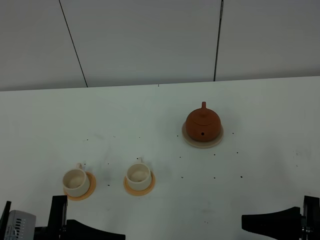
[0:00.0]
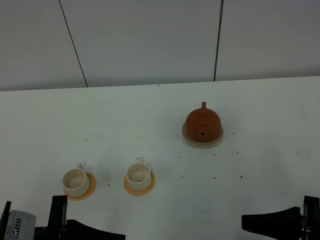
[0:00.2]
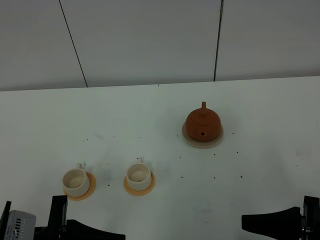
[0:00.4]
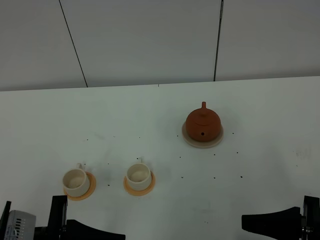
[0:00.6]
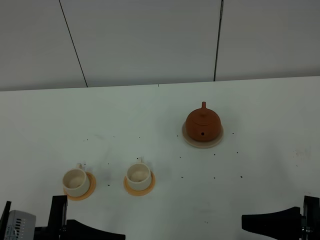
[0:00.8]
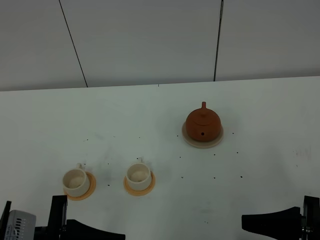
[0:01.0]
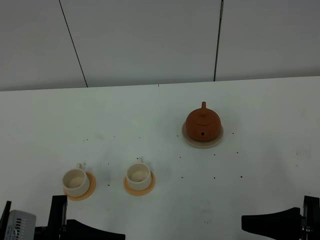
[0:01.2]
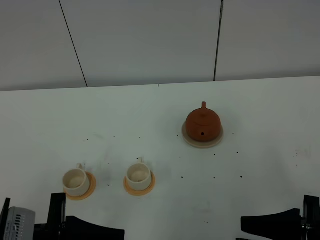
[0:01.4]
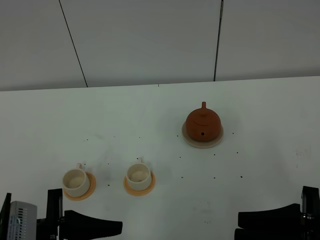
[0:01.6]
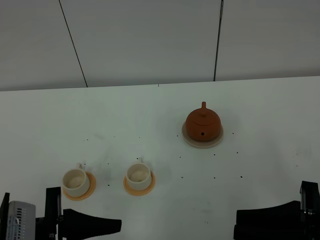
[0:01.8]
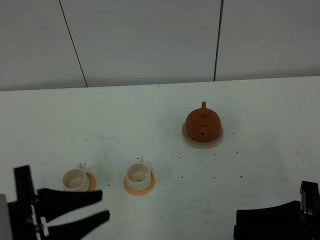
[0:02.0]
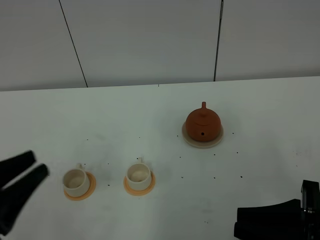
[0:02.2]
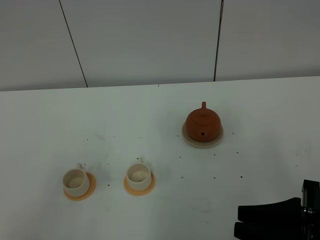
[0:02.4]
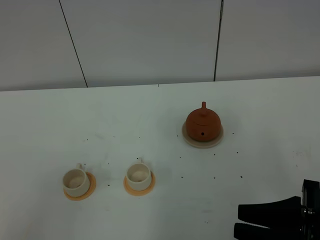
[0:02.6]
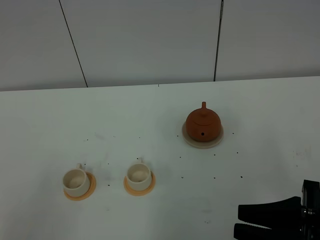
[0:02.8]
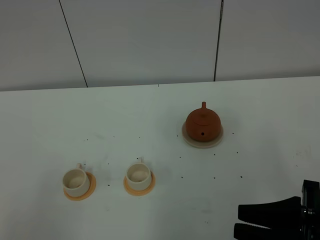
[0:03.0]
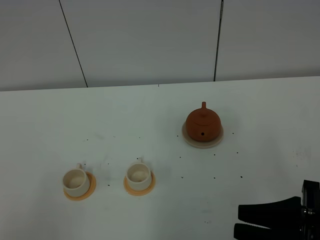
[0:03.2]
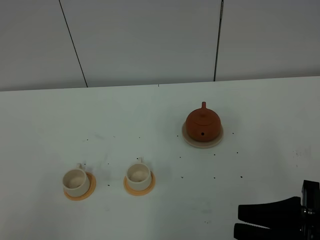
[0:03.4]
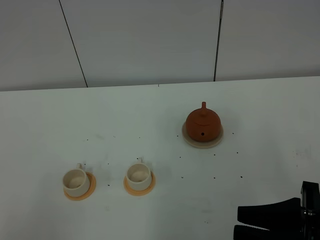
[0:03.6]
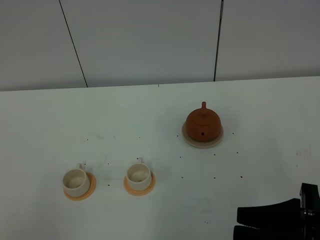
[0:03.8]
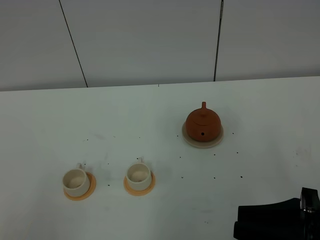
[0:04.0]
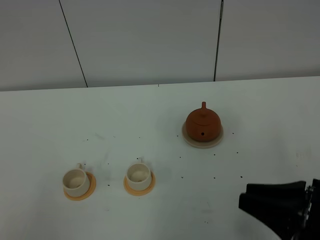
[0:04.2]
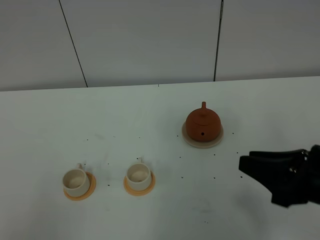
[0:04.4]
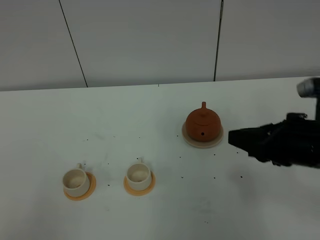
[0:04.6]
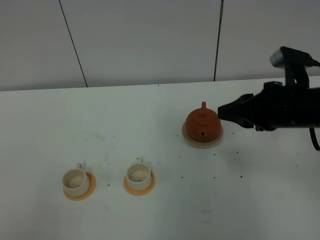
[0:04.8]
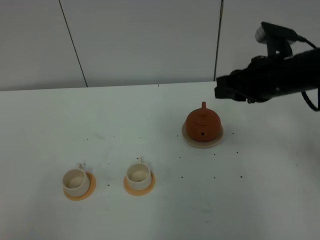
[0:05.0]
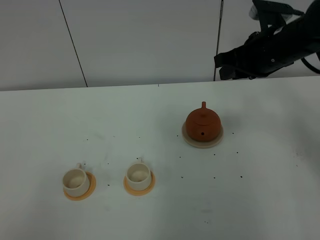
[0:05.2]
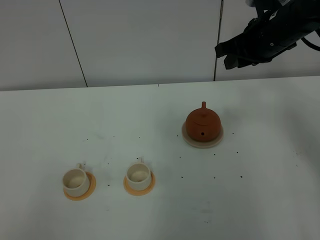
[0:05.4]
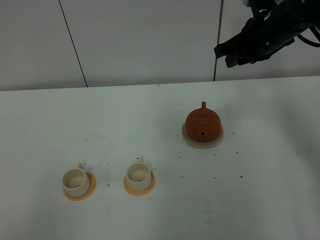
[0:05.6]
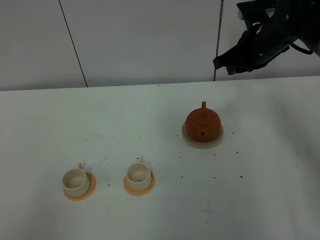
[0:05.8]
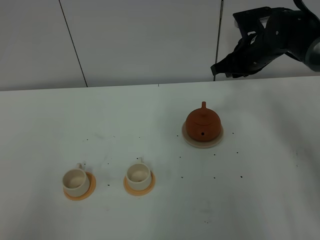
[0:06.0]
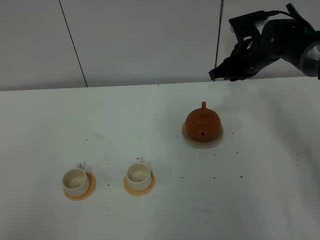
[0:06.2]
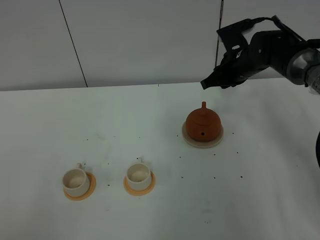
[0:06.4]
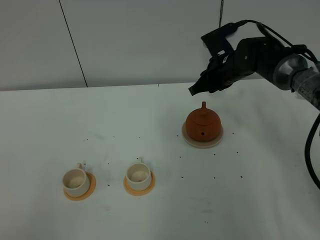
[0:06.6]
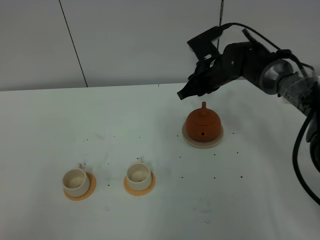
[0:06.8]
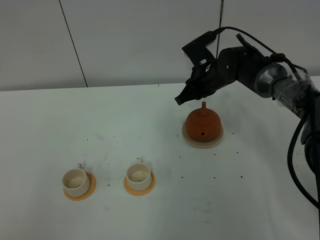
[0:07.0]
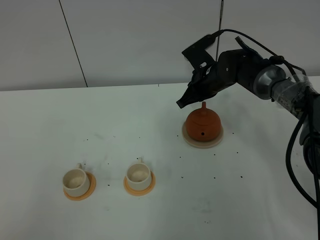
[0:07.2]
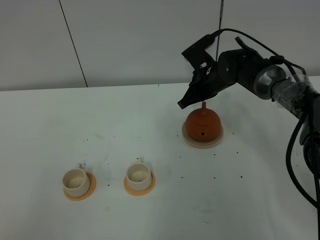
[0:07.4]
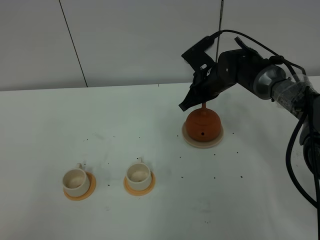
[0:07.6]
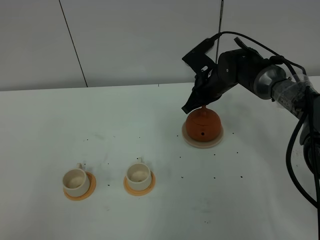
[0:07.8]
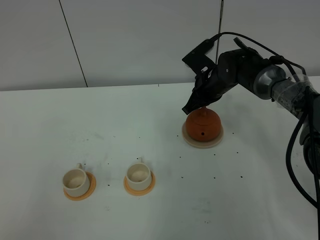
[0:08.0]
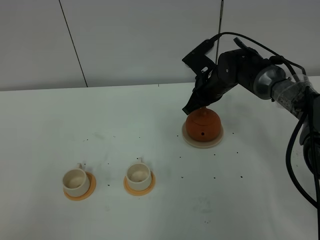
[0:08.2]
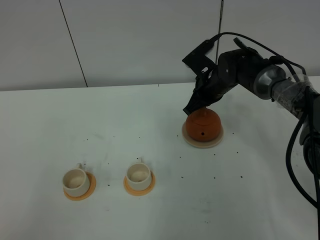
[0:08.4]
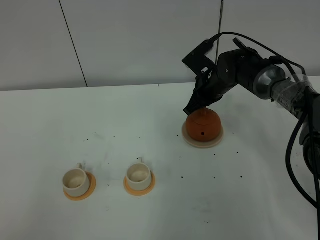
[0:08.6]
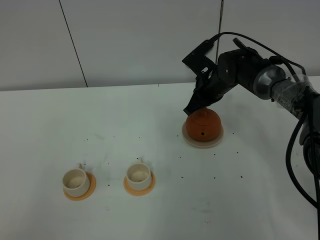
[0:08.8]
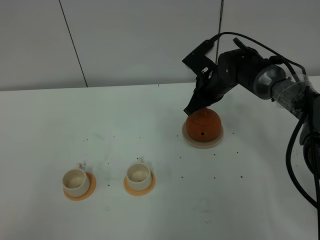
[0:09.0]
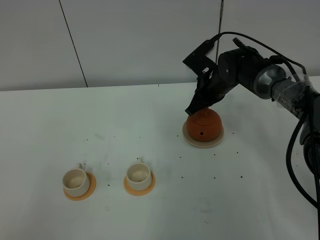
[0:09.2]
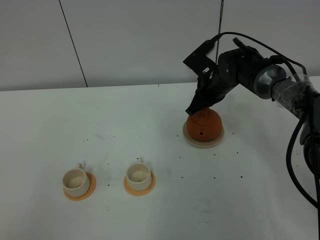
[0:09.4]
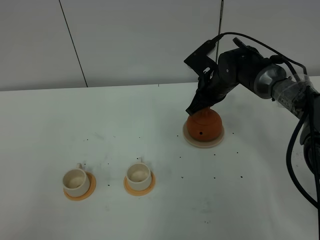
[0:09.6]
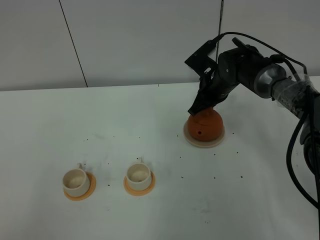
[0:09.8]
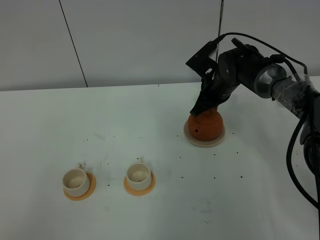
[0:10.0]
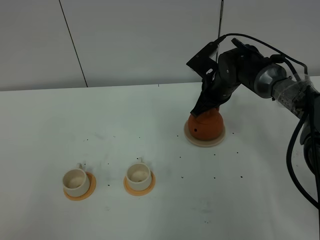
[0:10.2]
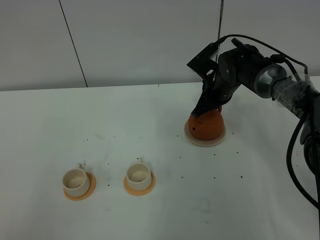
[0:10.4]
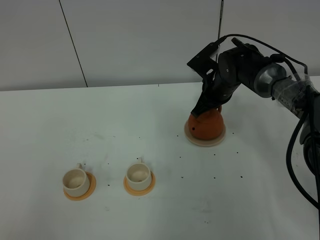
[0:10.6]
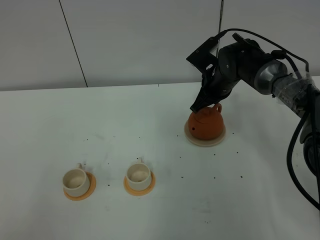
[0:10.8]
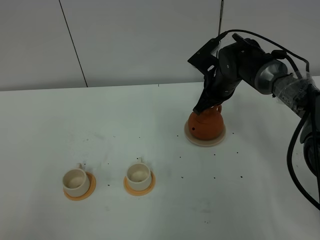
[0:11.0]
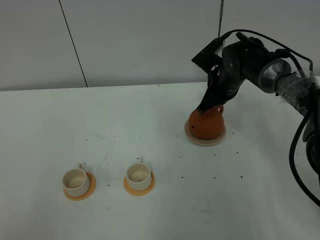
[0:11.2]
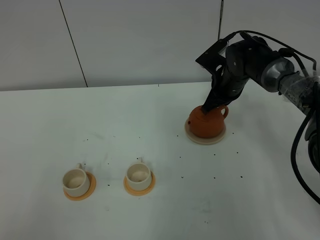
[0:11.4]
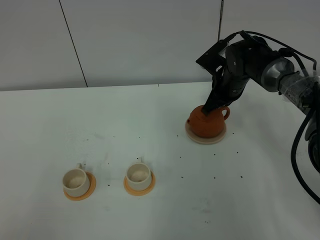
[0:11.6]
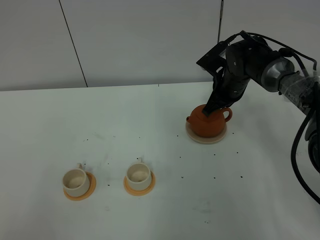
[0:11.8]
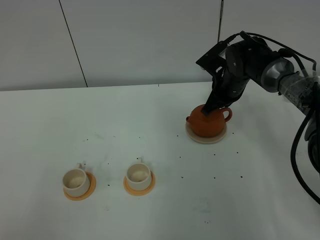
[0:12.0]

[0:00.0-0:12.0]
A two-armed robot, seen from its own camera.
Task of the whole recording: grasp the brown teapot and pour the tea into the two white teacups one by one, put the brown teapot back in its original place.
0:00.0 to 0:01.6: The right gripper closes up.
0:01.6 to 0:03.0: The left gripper shifts approximately 15 cm backward, to the left and upward, and closes its fingers.
0:03.0 to 0:04.4: The right gripper moves forward, roughly 5 cm.
0:04.4 to 0:06.0: The right gripper moves forward, approximately 30 cm.
0:06.0 to 0:07.6: The right gripper travels to the left and downward by about 10 cm, and closes up.
0:07.6 to 0:12.0: There are only small adjustments of the grippers.

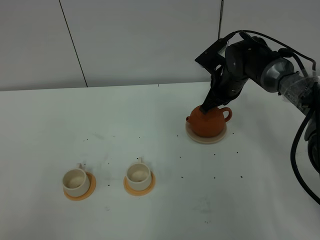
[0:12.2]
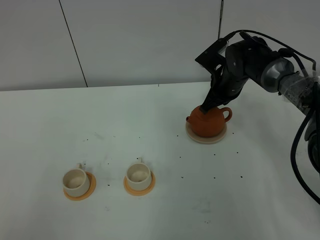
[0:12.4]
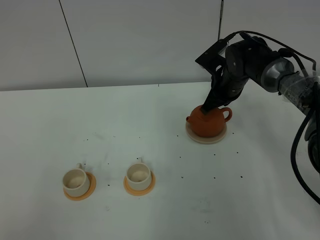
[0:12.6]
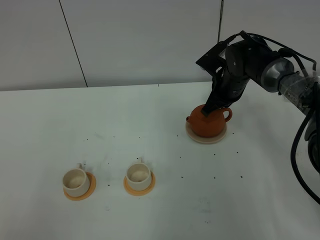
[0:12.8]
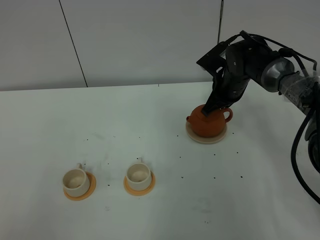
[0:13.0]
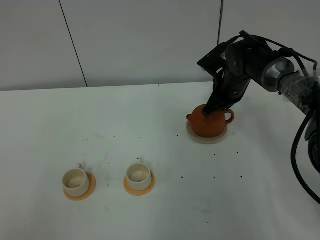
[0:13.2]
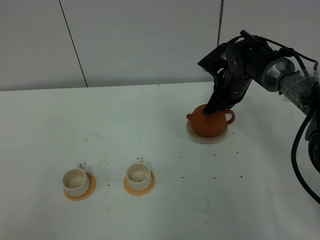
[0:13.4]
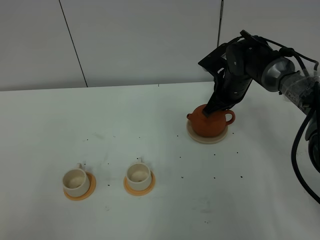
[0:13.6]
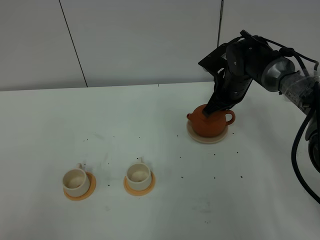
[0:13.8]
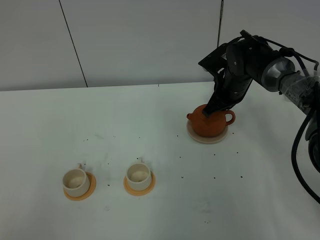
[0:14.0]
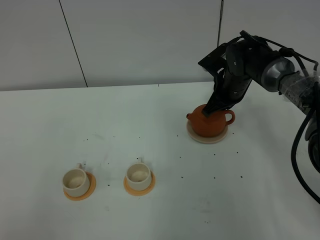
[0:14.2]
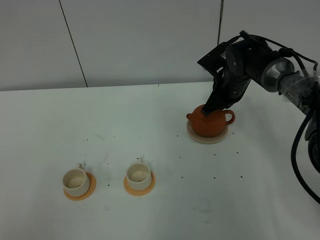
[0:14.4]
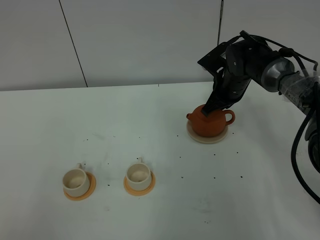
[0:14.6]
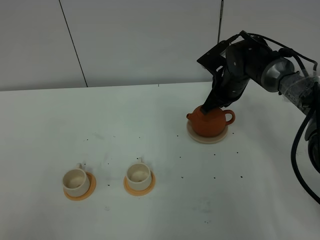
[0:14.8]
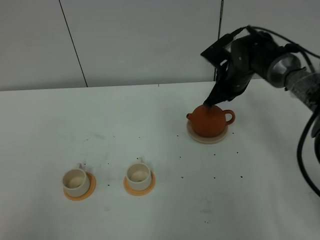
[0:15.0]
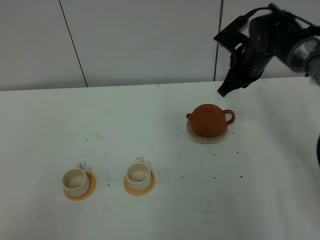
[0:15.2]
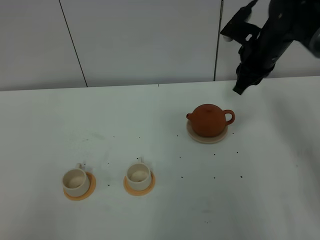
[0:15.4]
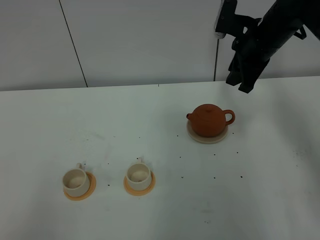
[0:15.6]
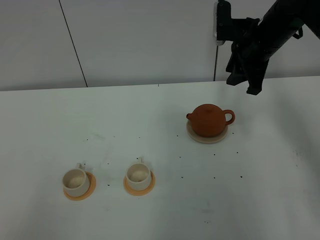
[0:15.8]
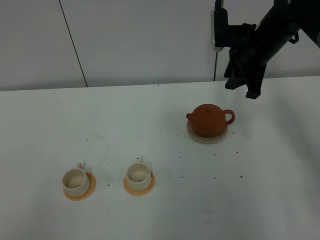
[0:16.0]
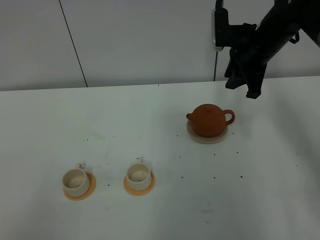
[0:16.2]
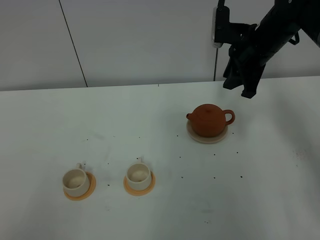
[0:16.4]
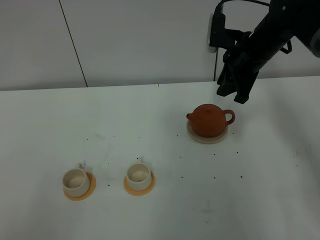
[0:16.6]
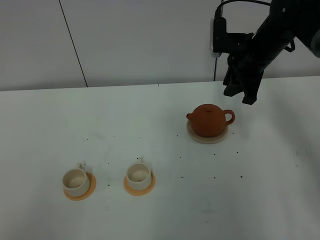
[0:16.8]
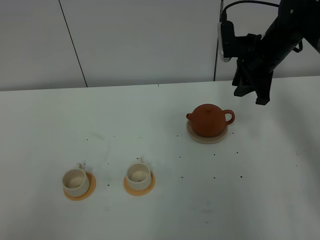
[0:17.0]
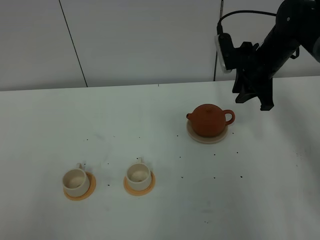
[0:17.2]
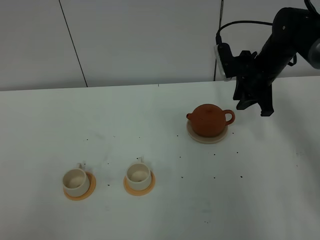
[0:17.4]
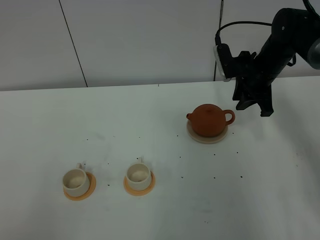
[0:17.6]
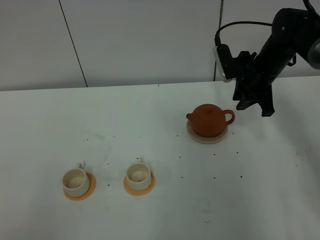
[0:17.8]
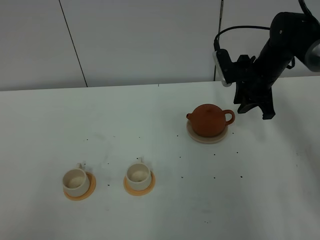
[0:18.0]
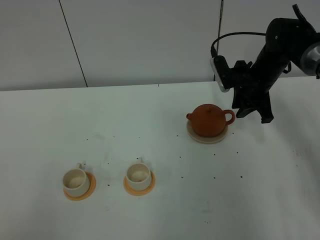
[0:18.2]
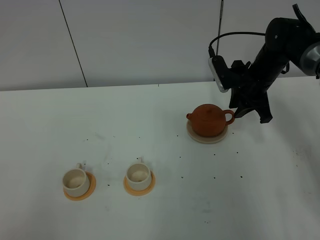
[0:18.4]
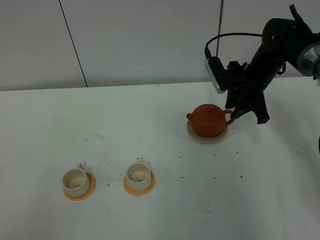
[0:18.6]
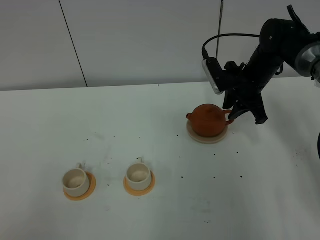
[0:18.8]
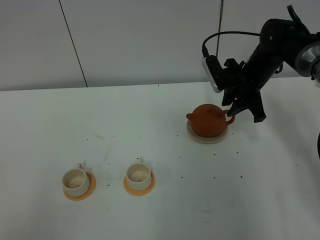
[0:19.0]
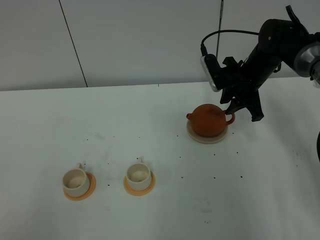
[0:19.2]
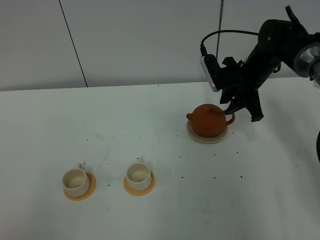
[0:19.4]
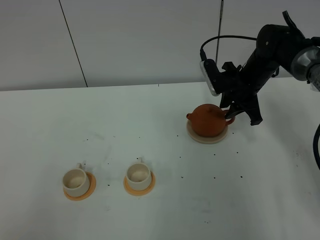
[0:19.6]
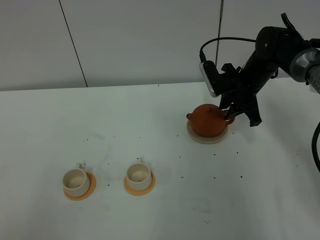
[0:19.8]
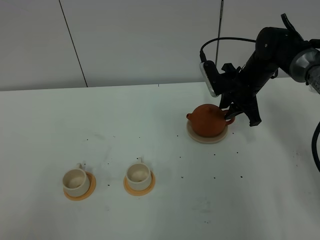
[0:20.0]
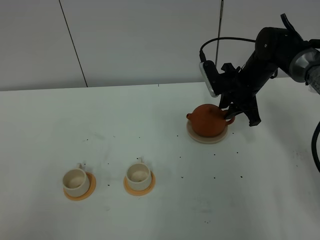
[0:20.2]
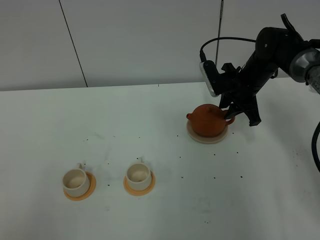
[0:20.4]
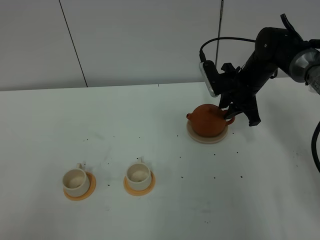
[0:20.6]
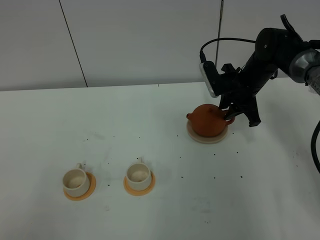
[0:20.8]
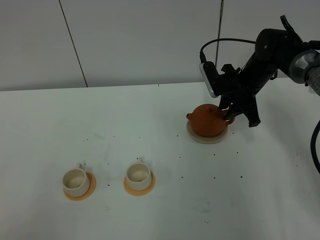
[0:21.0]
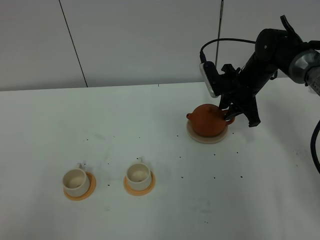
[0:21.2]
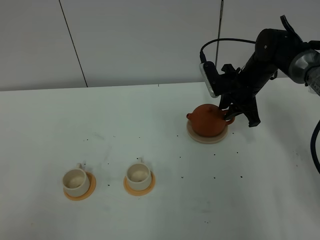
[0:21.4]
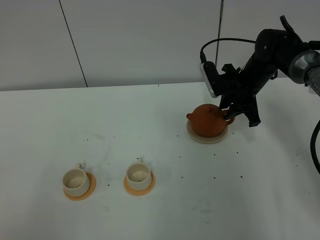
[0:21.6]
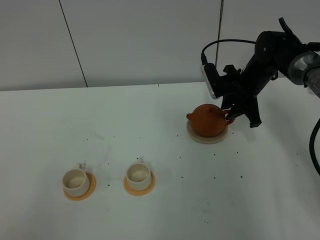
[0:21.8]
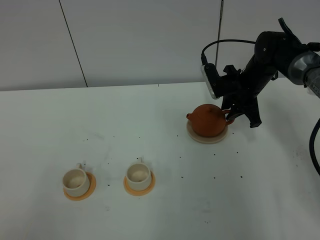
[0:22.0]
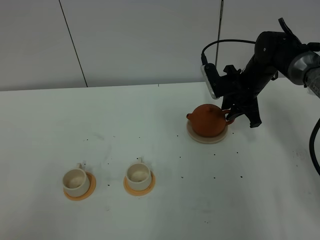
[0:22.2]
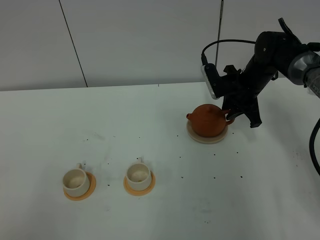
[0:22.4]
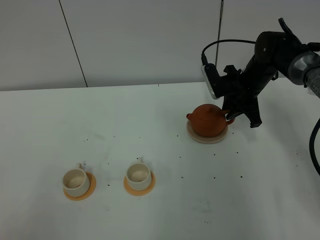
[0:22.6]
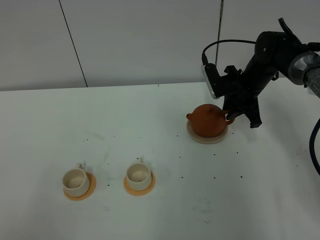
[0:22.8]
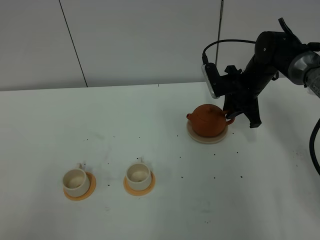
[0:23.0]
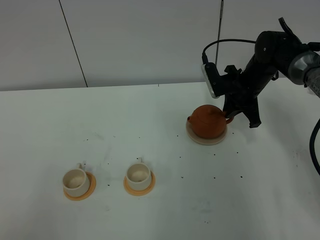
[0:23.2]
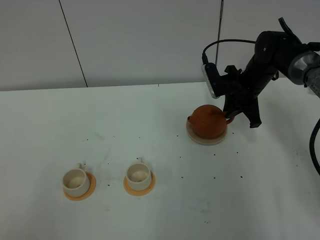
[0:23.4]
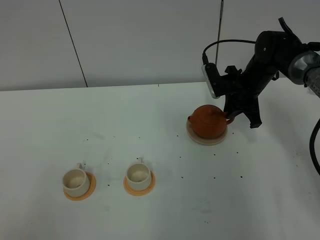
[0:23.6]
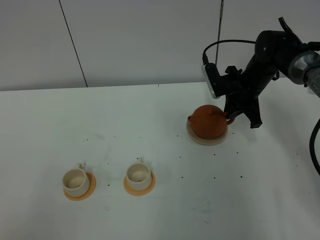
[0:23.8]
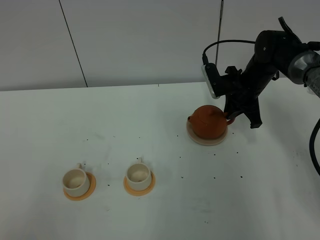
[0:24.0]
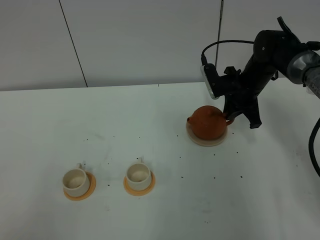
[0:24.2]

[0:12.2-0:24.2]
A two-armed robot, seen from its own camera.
Task of the whole recording: grasp the brown teapot and pour the tea into the two white teacups one by one, put the brown teapot back in its original place.
0:12.2 to 0:13.8: The grippers stay close to where they were, moving slightly.
0:13.8 to 0:15.2: The right gripper heads upward, covering about 5 cm.
0:16.6 to 0:18.2: The right gripper is displaced downward by roughly 5 cm.
0:18.2 to 0:19.8: The grippers make only small movements.
0:19.8 to 0:24.2: Both grippers stay put.
